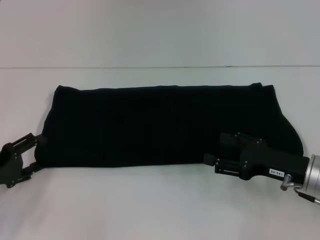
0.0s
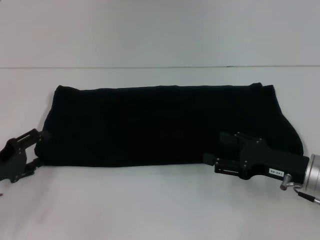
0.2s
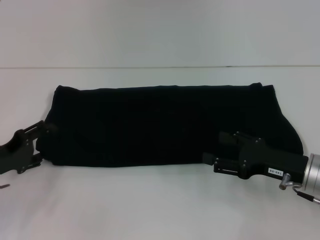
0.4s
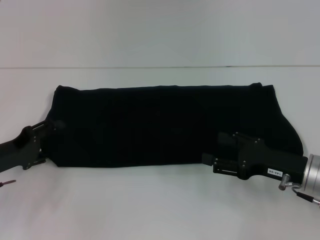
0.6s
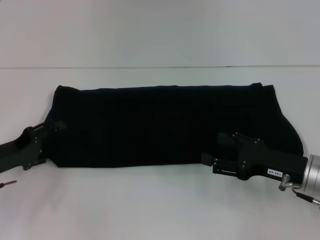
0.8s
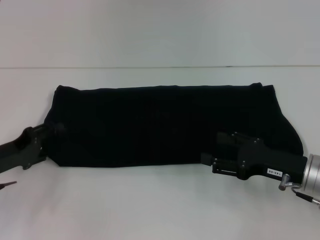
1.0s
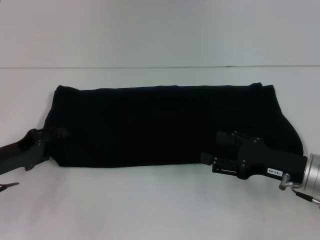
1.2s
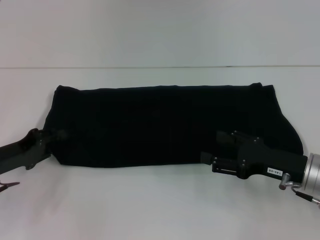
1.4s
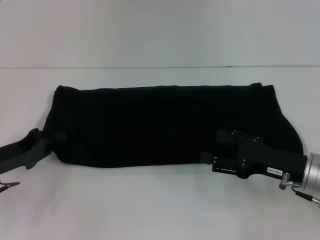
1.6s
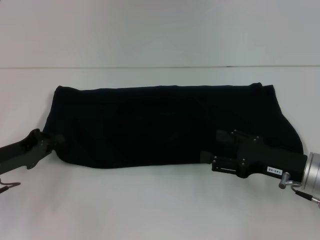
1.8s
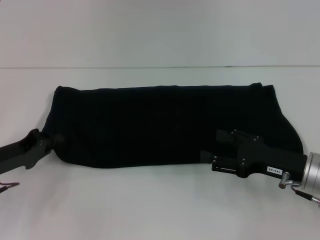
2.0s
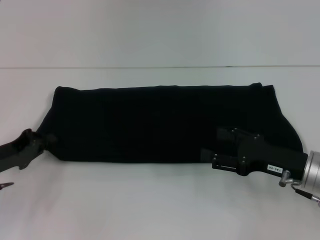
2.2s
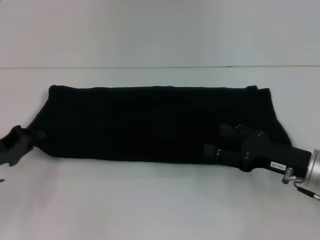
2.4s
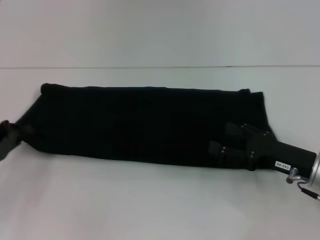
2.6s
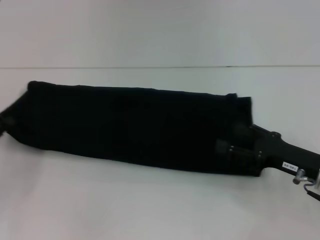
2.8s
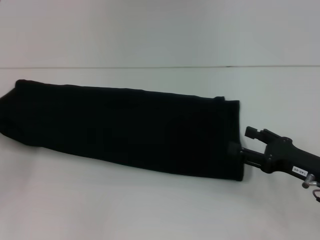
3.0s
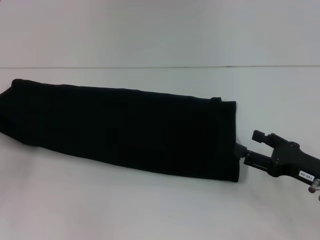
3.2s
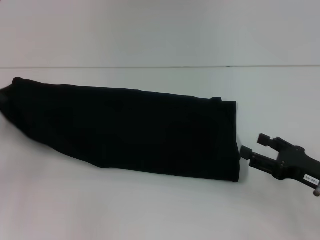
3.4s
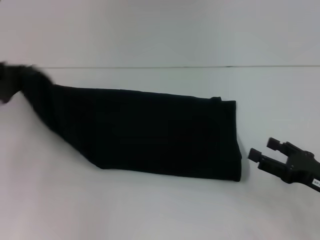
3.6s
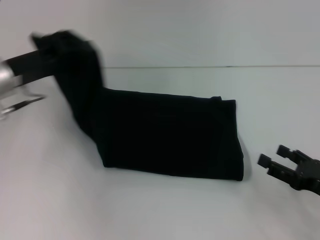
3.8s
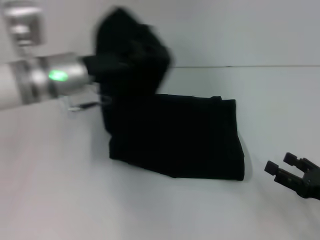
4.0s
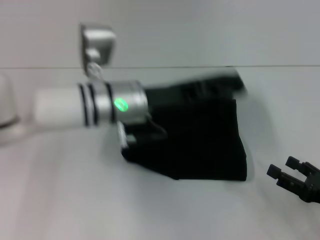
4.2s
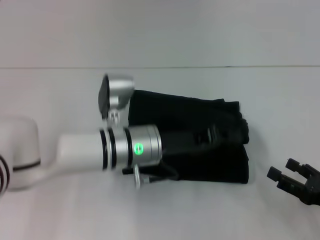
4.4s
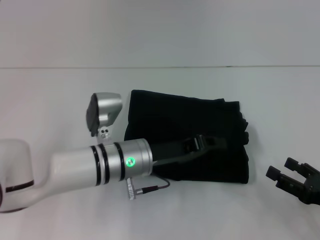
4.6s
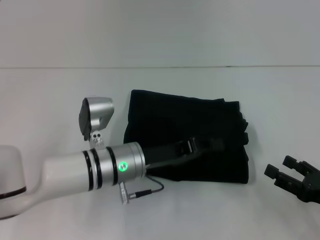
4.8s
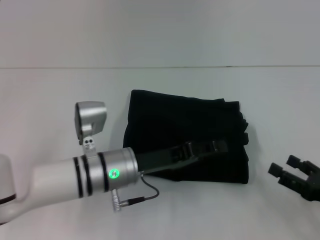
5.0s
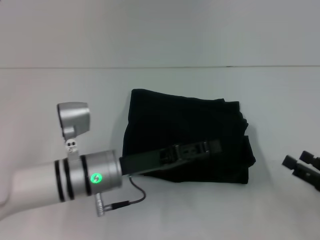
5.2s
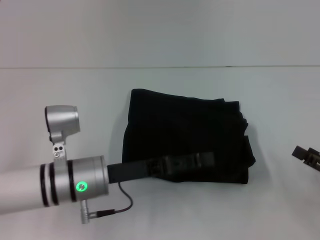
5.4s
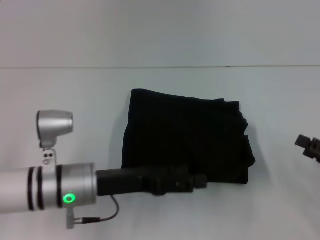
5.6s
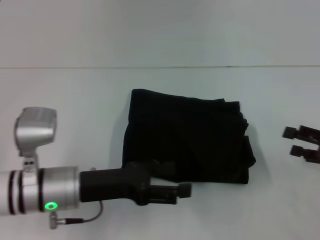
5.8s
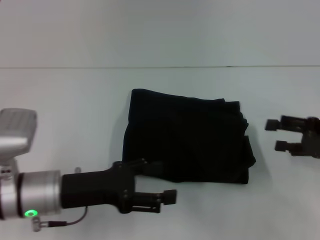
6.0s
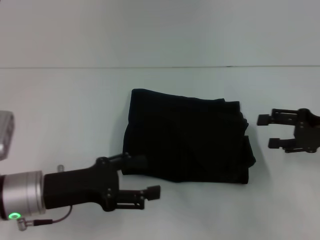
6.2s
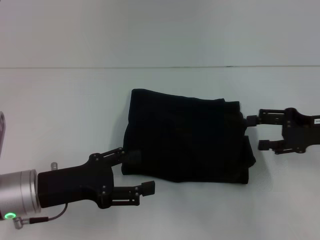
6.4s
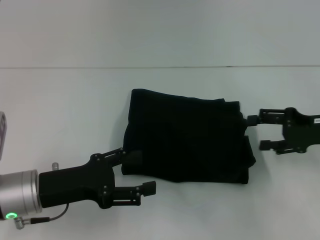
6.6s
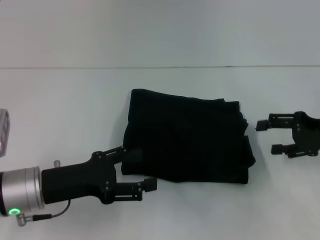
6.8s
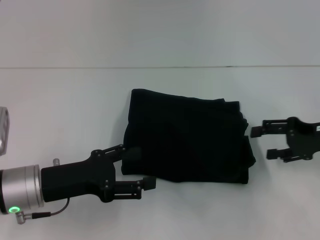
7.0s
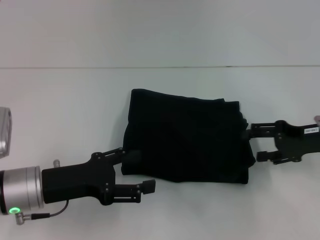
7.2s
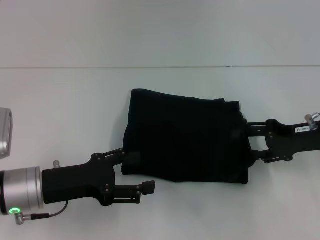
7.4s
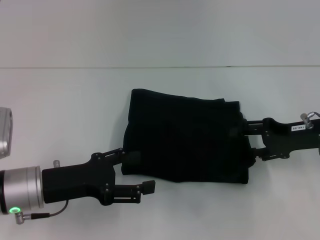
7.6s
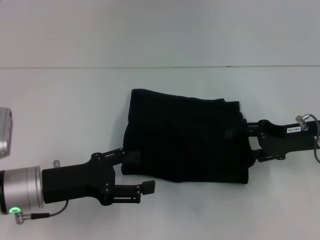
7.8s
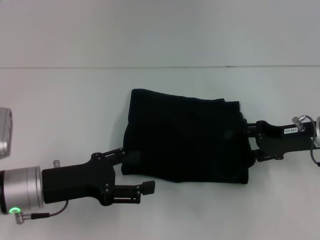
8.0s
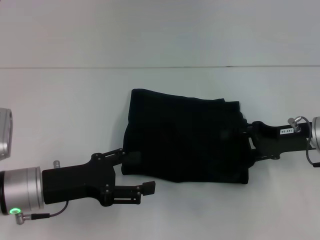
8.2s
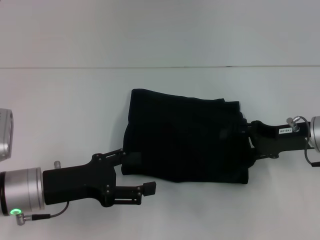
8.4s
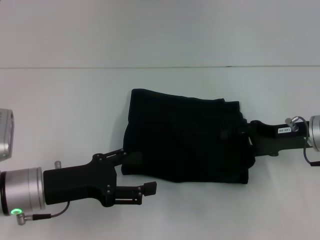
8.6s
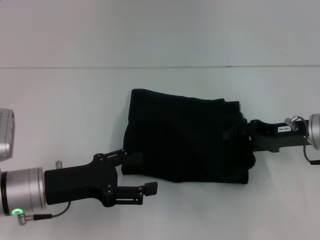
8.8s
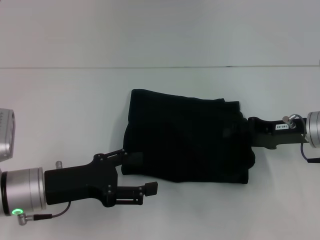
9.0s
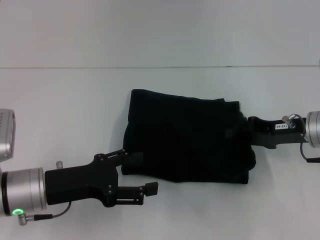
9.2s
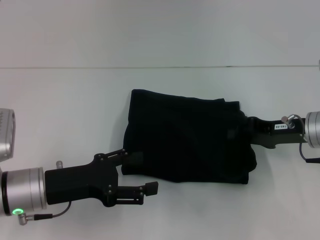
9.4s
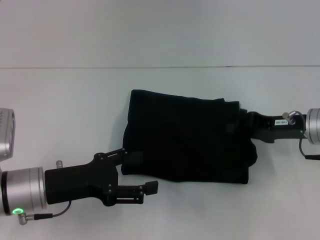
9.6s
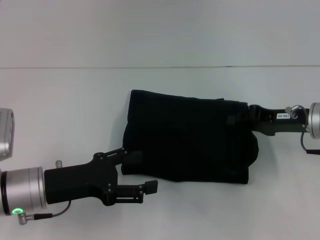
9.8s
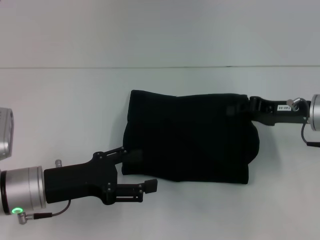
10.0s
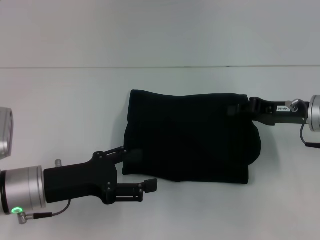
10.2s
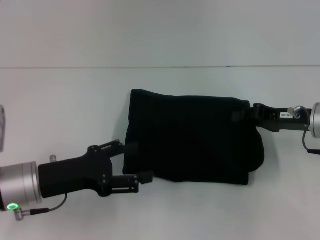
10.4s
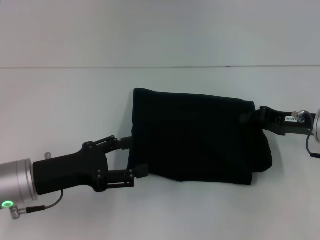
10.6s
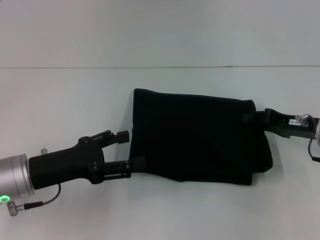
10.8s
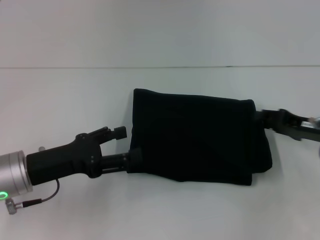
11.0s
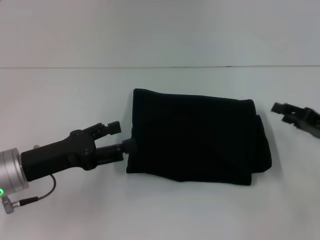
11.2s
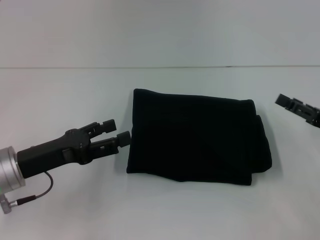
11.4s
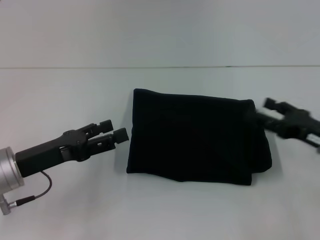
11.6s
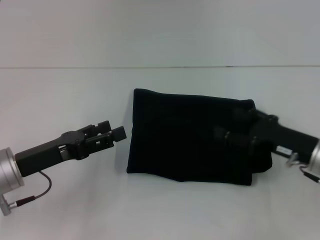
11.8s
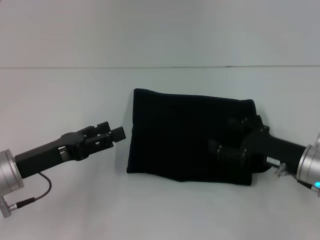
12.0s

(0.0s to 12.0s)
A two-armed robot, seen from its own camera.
Step, 0.0s - 5.0s: Fold the clothes with your left hand.
0.0s - 1.6s: The left gripper closes.
1.6s - 3.0s: The left gripper is displaced to the left by some 10 cm, and closes up.
3.0s - 4.4s: The right gripper moves backward, about 5 cm. The left gripper heads to the right, covering some 30 cm.
4.4s - 6.0s: The left gripper shifts about 15 cm to the left and backward, and opens up. Meanwhile the right gripper travels forward and upward by some 15 cm.
6.0s - 7.6s: The right gripper heads to the left, covering some 5 cm.
7.6s - 9.0s: The right gripper closes up.
9.0s - 10.4s: The right gripper closes.
10.4s - 12.0s: The right gripper goes roughly 10 cm backward and downward, travels to the right and back again, about 5 cm each way, and opens its fingers.

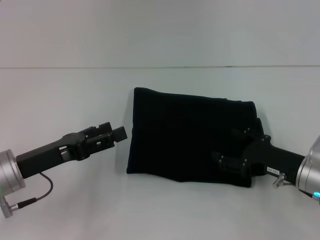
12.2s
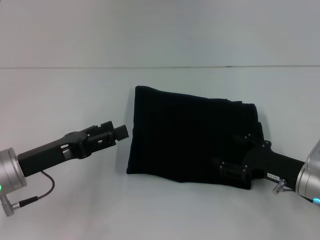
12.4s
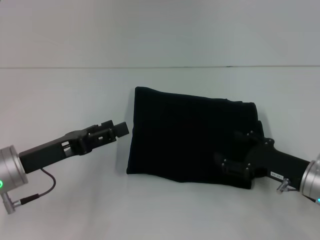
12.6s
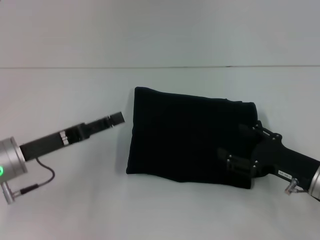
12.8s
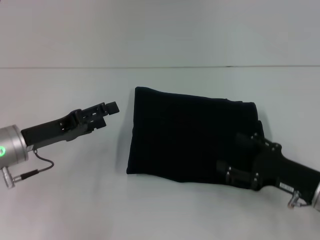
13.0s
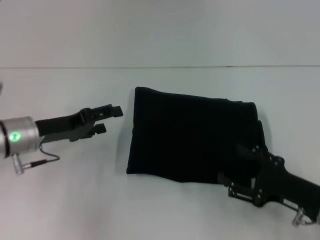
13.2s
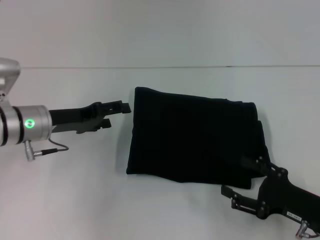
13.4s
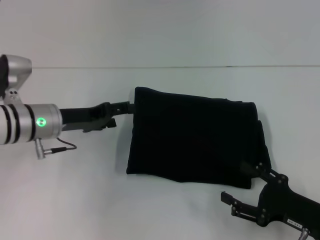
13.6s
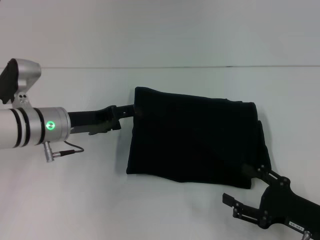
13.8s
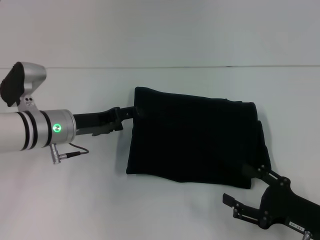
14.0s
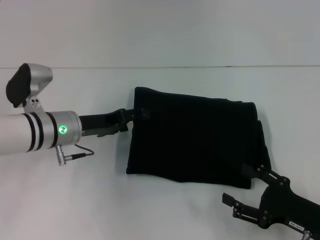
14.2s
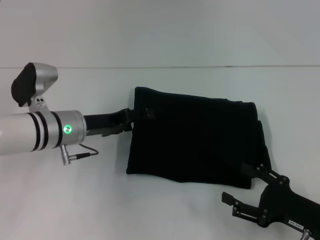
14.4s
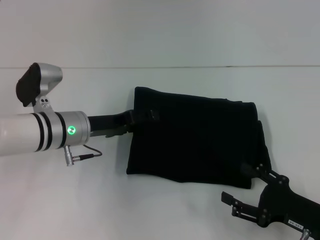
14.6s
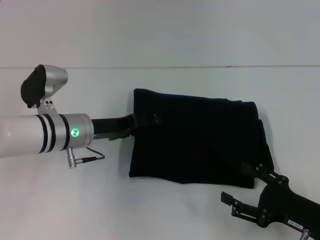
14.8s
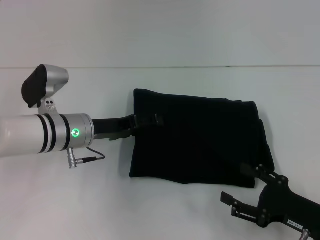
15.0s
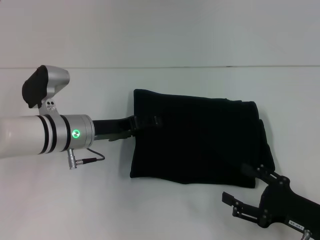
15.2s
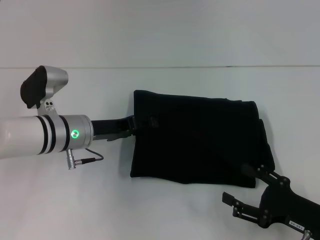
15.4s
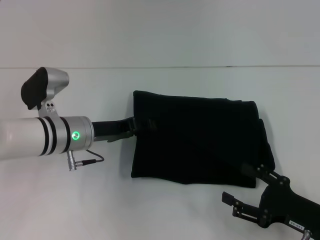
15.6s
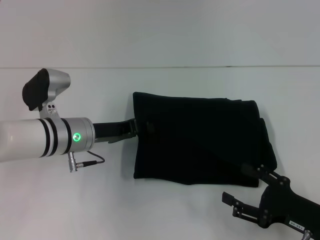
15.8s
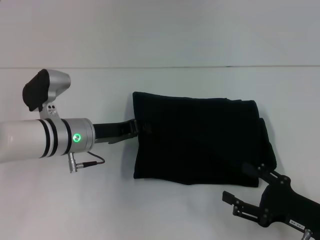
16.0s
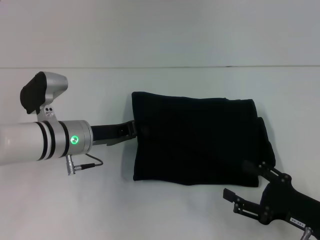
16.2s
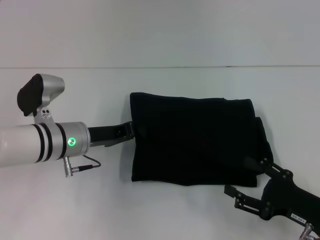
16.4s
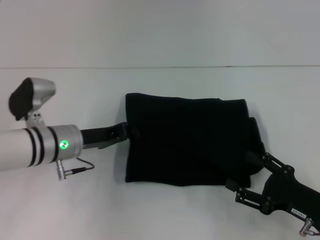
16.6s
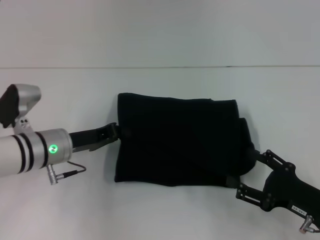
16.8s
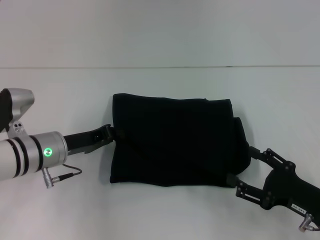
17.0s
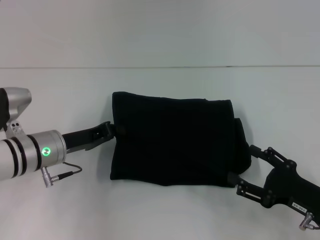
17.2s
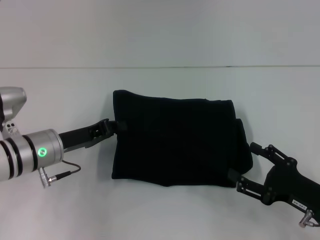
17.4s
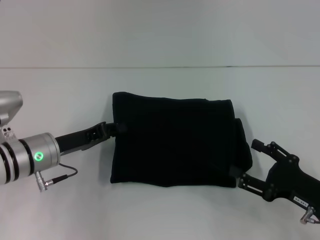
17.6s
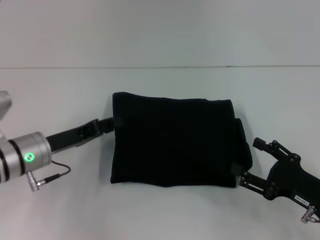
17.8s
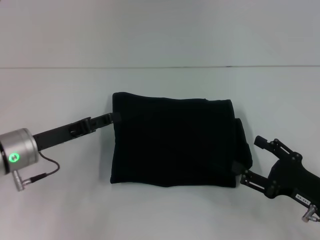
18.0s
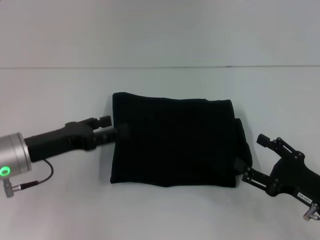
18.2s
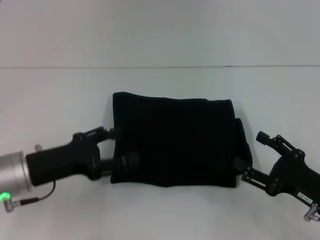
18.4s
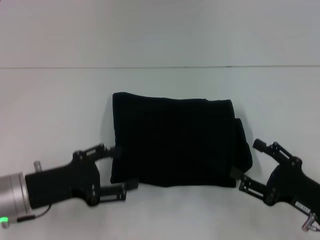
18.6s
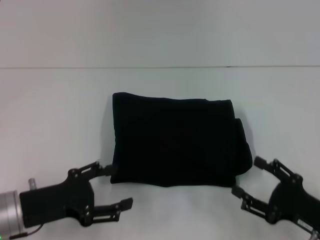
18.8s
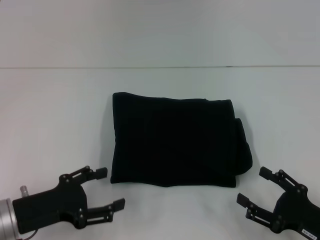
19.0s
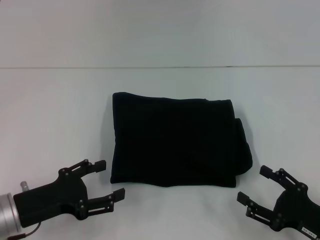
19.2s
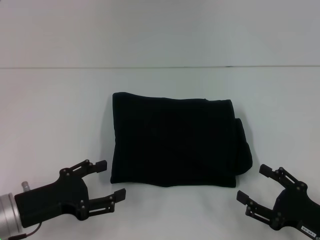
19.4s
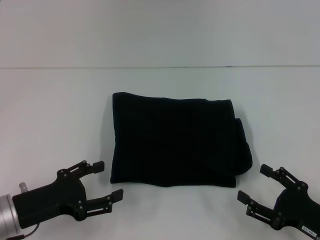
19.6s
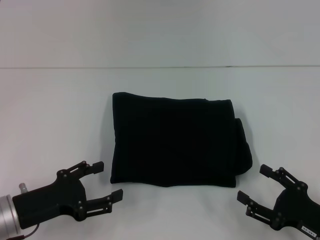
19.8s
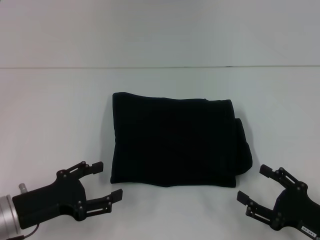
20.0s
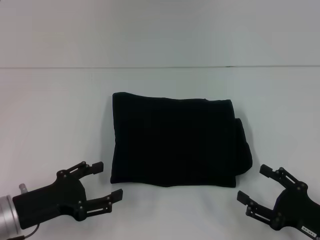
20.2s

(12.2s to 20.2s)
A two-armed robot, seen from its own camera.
12.2s - 13.8s: The right gripper is displaced backward by approximately 10 cm, while the left gripper heads forward, covering some 10 cm.
13.8s - 15.4s: The grippers move only a little.
15.4s - 17.0s: The left gripper ends up some 5 cm from where it was, and closes its fingers.
17.0s - 18.6s: The left gripper moves backward, about 10 cm, and opens its fingers.
18.6s - 20.2s: There are only small adjustments of the grippers.
